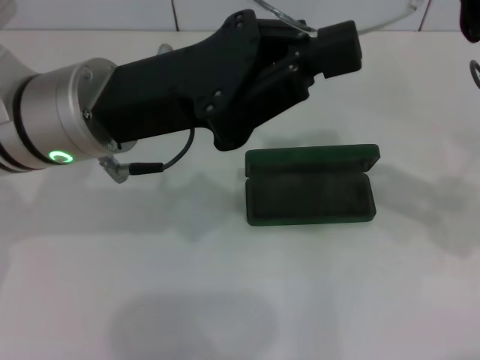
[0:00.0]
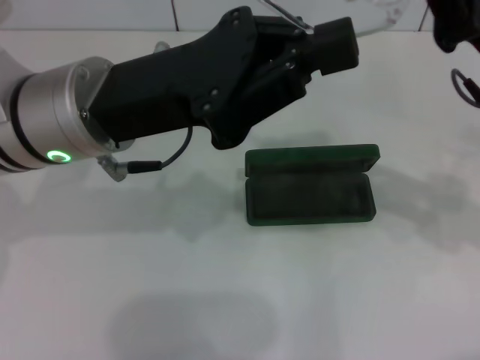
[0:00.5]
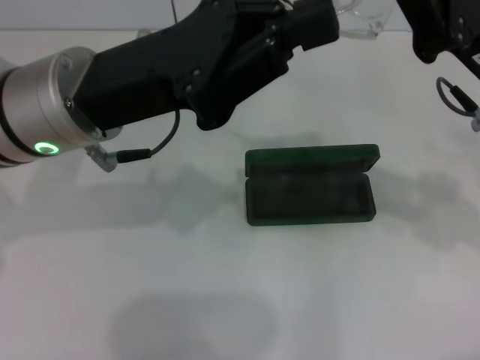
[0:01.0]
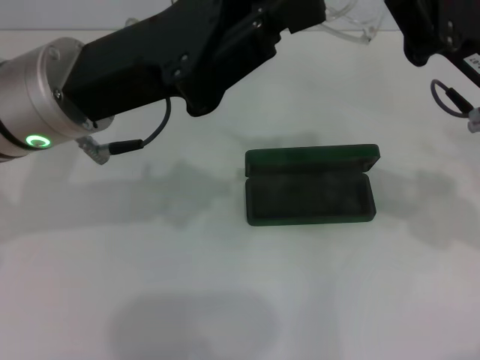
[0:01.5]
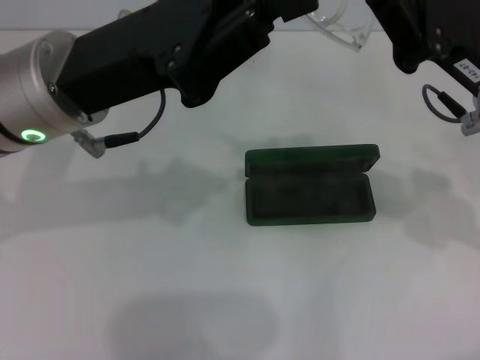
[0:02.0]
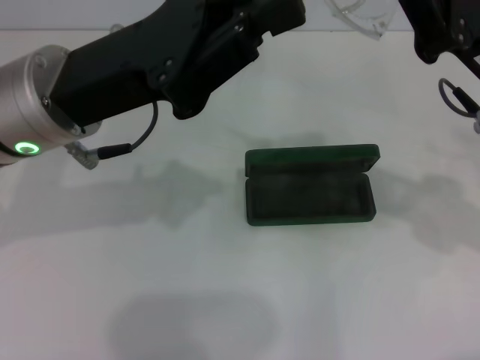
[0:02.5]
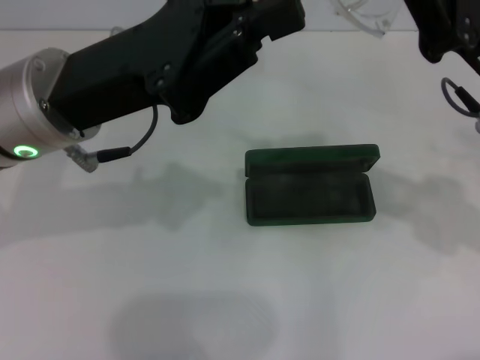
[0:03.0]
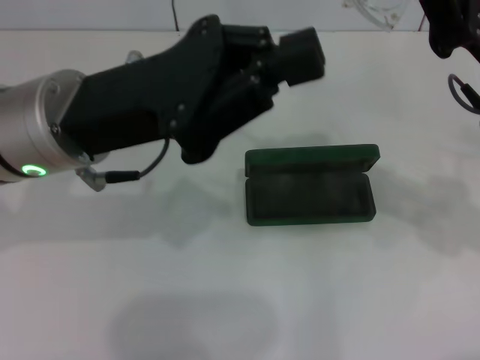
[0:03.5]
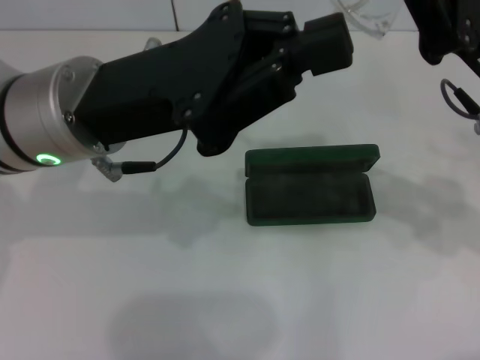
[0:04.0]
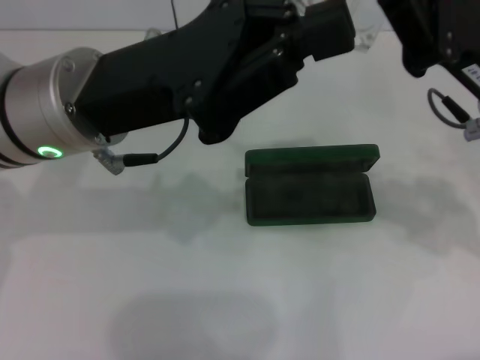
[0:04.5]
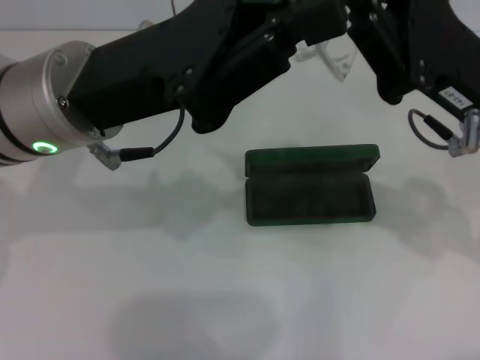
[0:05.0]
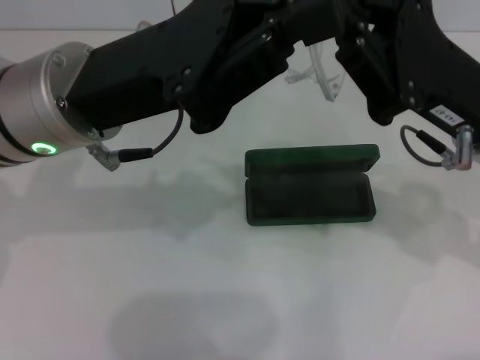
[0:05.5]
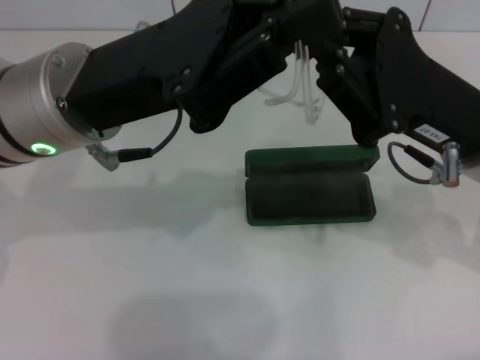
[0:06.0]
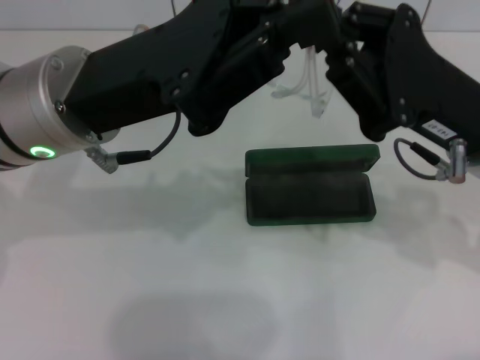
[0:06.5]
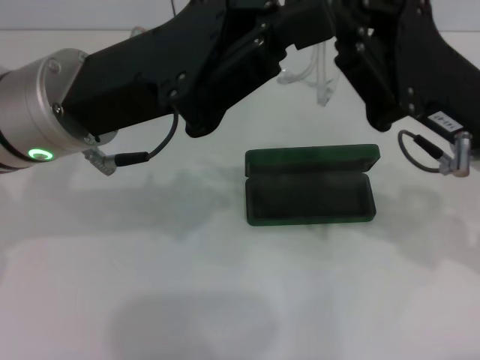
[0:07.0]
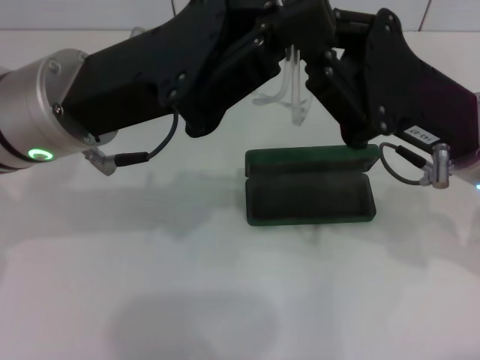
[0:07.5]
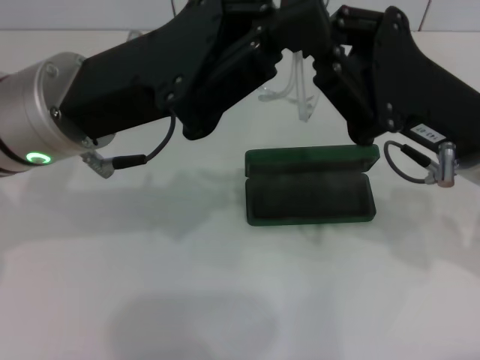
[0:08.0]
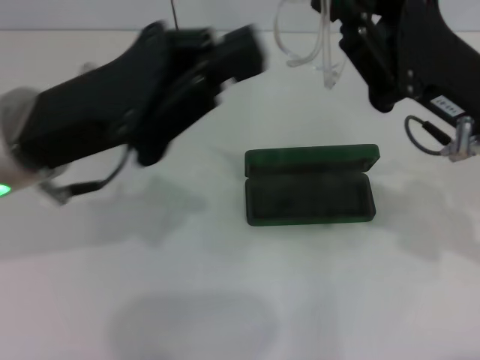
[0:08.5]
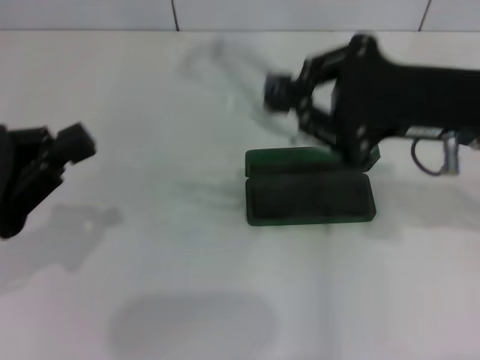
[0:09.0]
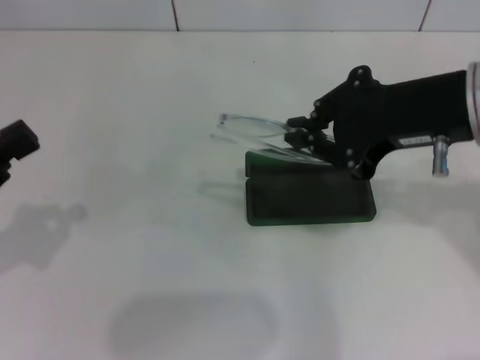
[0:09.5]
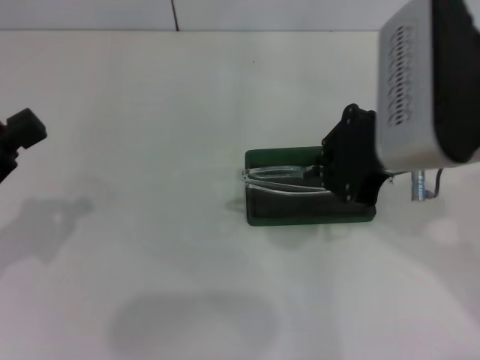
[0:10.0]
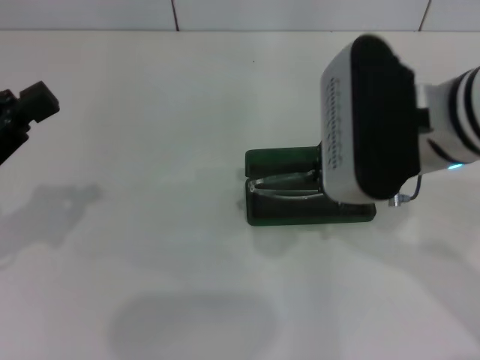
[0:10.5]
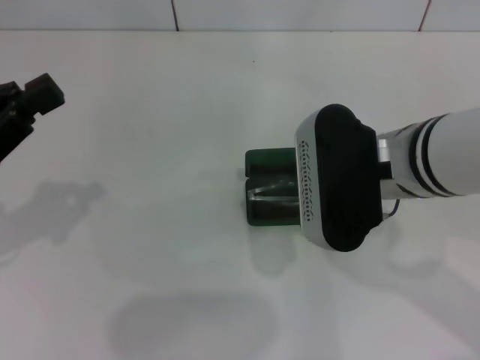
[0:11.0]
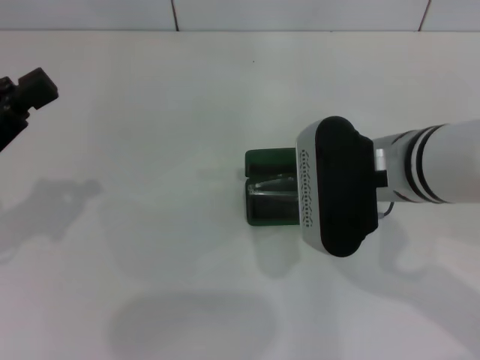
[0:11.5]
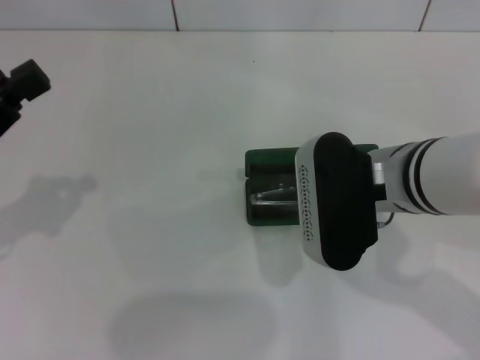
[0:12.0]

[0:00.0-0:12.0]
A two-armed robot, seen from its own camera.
Step, 0:00.0 to 0:08.0: Fold the frame with your left hand.
0:06.0 to 0:08.0: The two grippers keep their place.
0:08.0 to 0:10.0: The right gripper moves upward, roughly 10 cm. Meanwhile the left gripper moves to the left and backward, some 20 cm.
0:10.0 to 0:12.0: The right gripper goes about 10 cm downward.

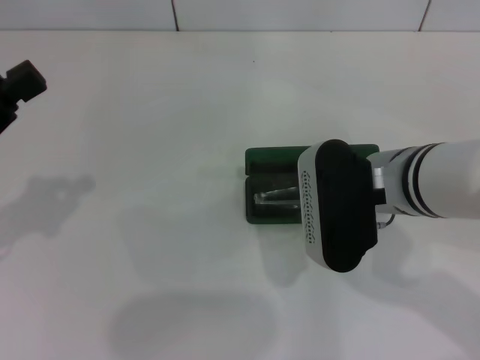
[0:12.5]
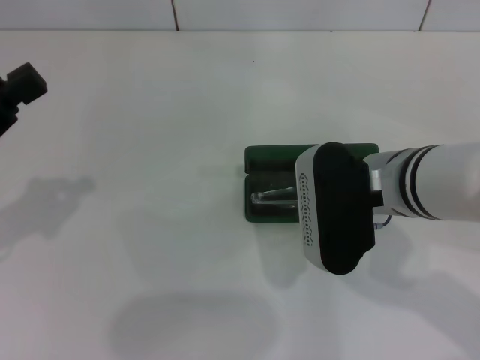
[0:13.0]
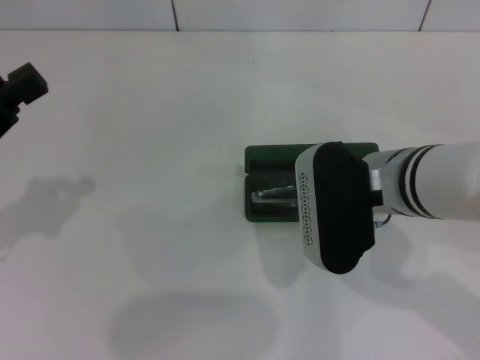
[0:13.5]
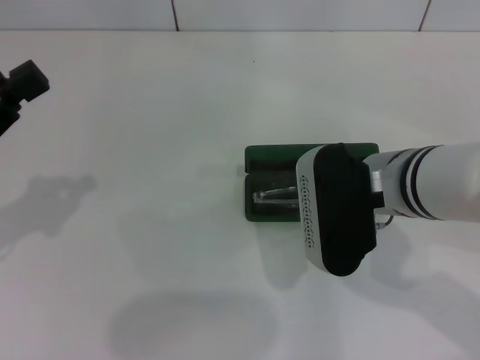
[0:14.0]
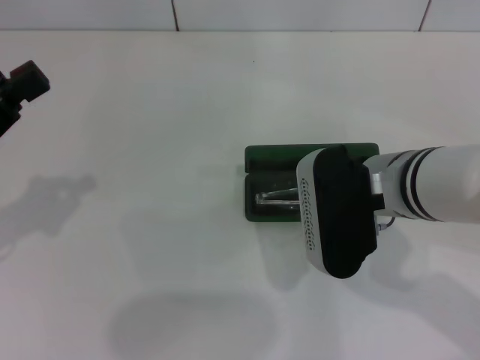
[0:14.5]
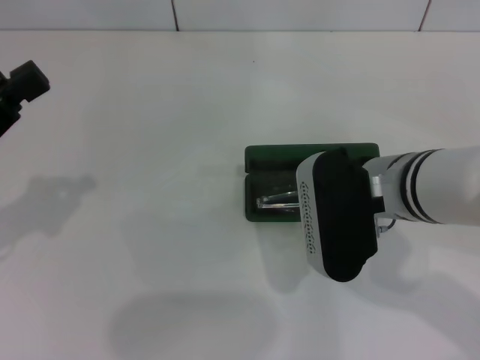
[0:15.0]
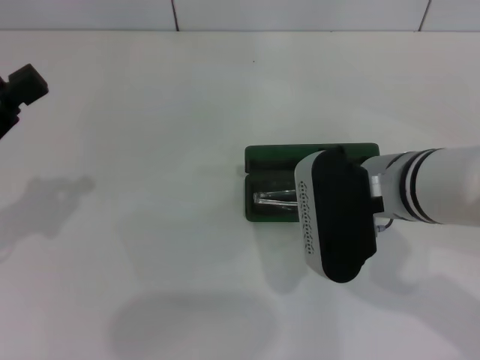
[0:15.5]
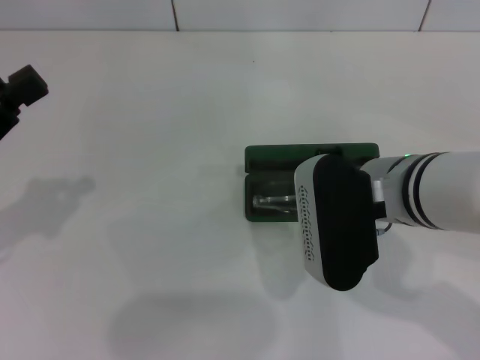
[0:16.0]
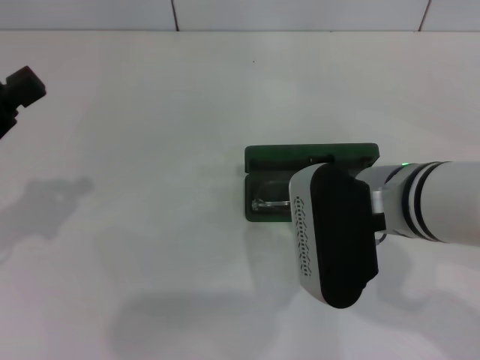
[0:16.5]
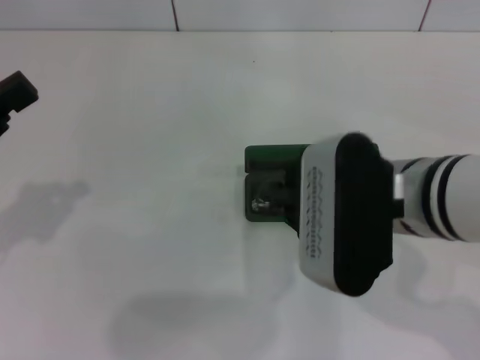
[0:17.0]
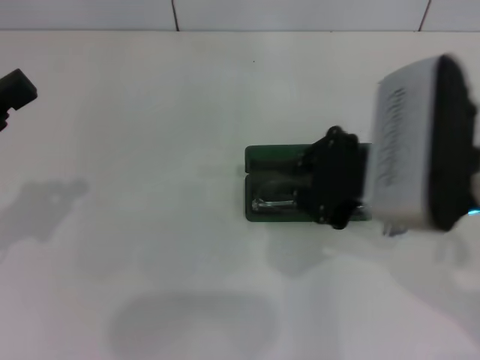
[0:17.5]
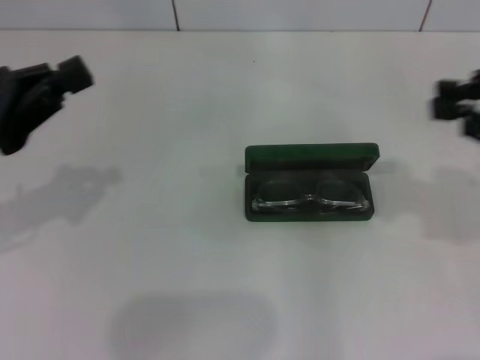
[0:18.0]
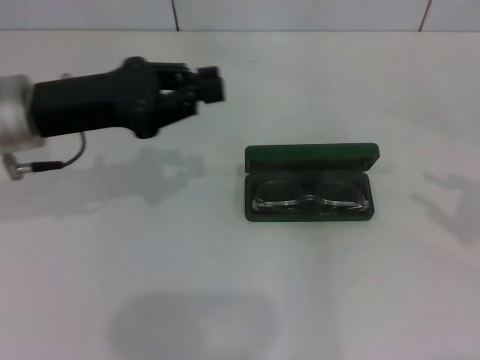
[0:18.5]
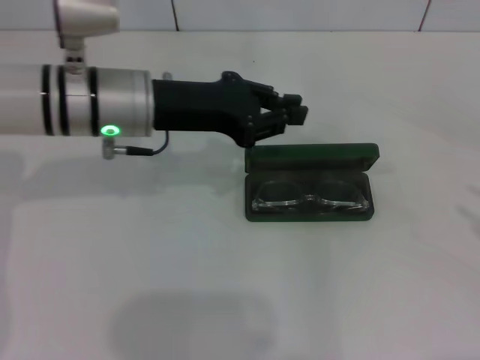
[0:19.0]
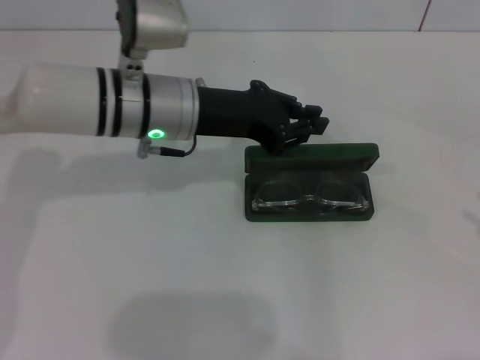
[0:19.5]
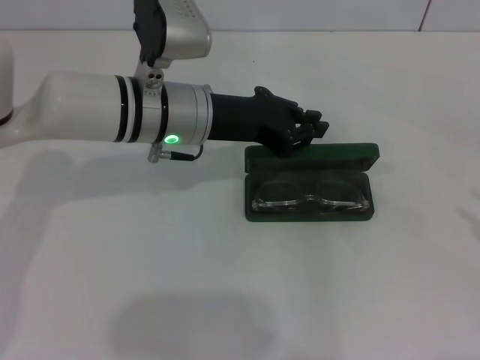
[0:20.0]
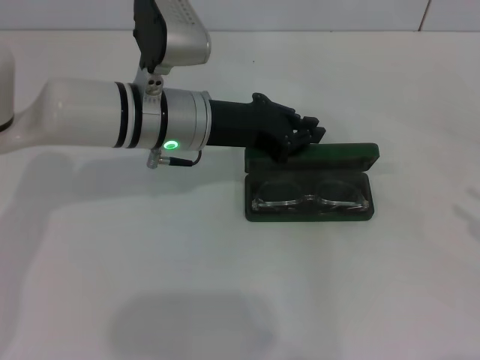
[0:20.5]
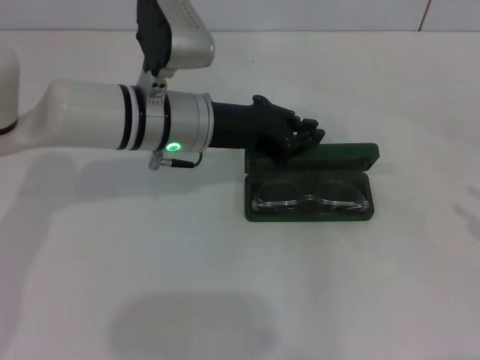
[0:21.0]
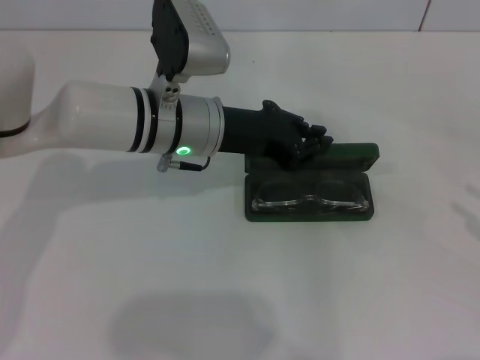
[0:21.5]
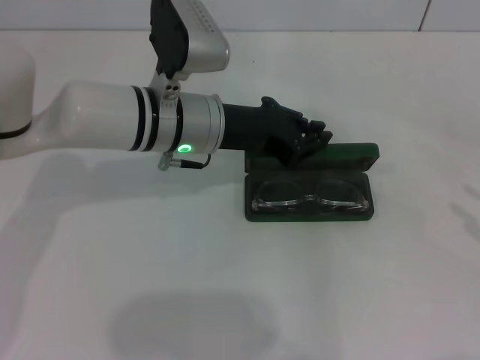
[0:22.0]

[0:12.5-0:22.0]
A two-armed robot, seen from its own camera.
Step, 0:12.5 to 0:17.0: Put the glasses into the case with your right hand.
0:12.5 to 0:14.5: The two grippers keep their place.
0:14.5 to 0:16.5: There are only small adjustments of the grippers.
0:16.5 to 0:18.0: The right gripper goes about 20 cm to the right and upward.
0:18.0 to 0:20.0: The left gripper moves to the right and forward, approximately 25 cm; the right gripper goes roughly 15 cm to the right, downward and backward.
0:20.0 to 0:22.0: The grippers stay close to where they were, moving slightly.

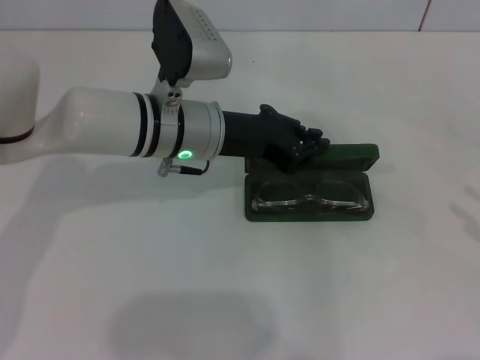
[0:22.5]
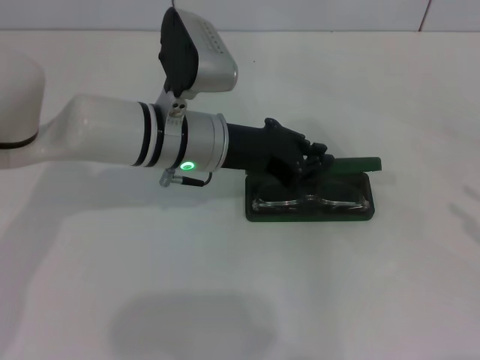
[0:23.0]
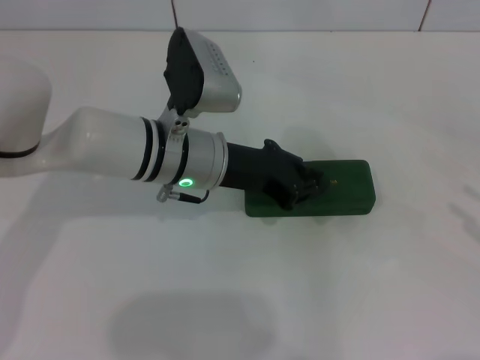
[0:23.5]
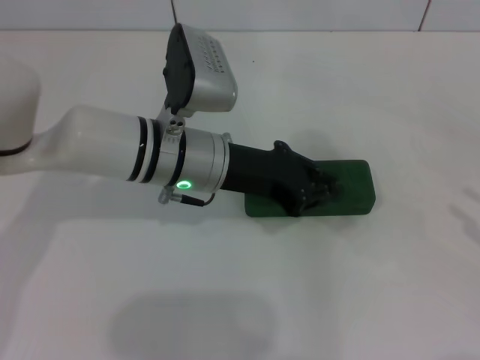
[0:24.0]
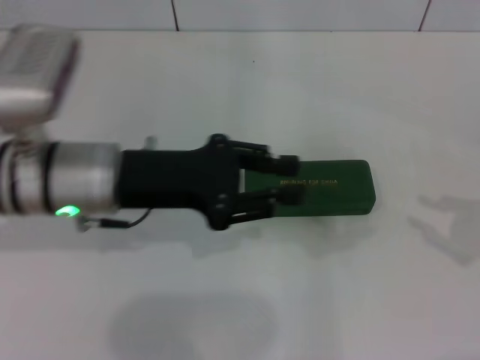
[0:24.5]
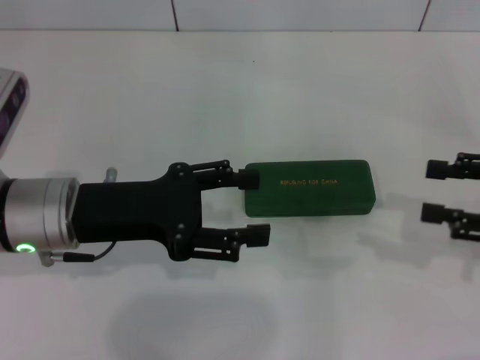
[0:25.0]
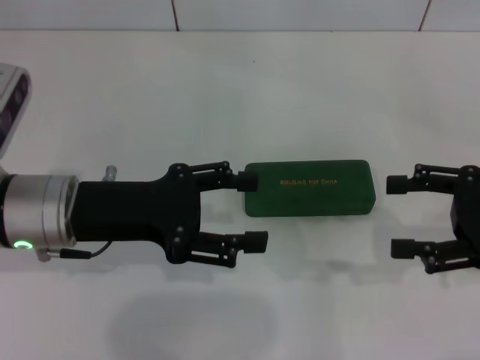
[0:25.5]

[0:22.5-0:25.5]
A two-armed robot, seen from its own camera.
0:22.5 to 0:24.0: The grippers move only a little.
0:24.0 to 0:25.5: The right gripper heads to the left and forward, covering some 15 cm, and opens its fingers. The left gripper shifts about 15 cm to the left and backward, and opens its fingers.
